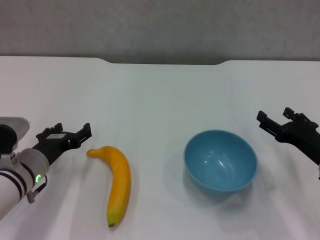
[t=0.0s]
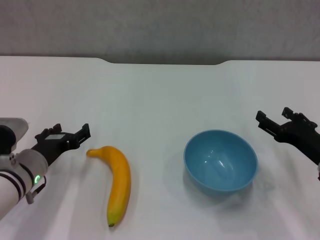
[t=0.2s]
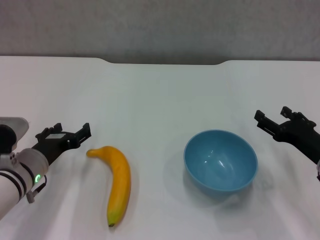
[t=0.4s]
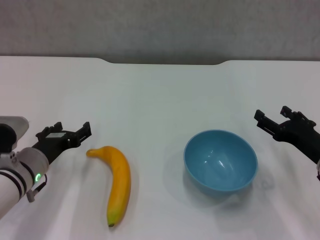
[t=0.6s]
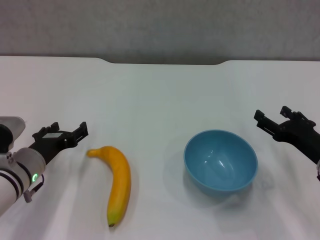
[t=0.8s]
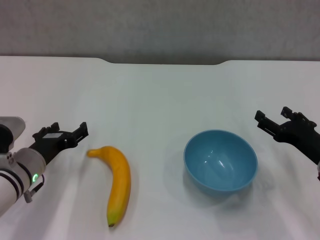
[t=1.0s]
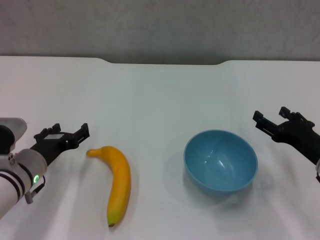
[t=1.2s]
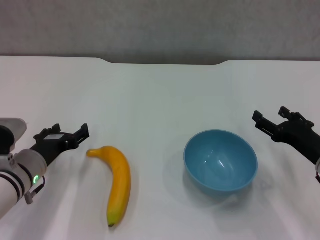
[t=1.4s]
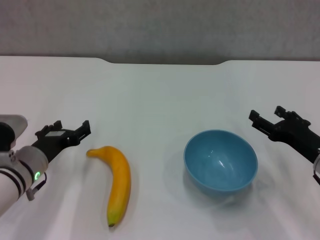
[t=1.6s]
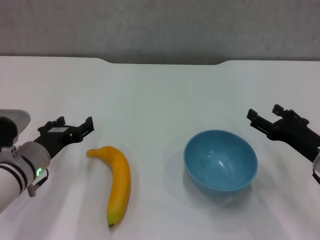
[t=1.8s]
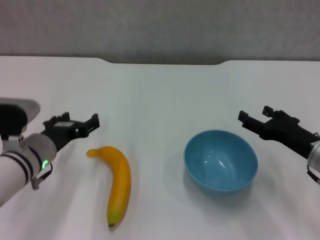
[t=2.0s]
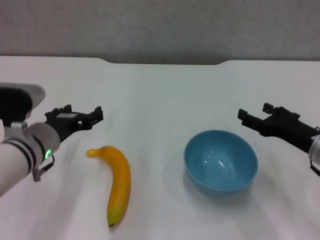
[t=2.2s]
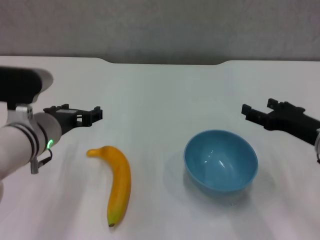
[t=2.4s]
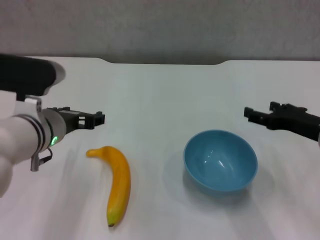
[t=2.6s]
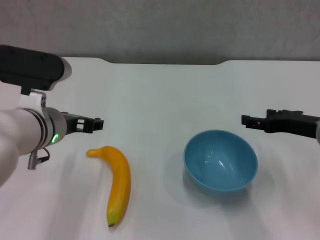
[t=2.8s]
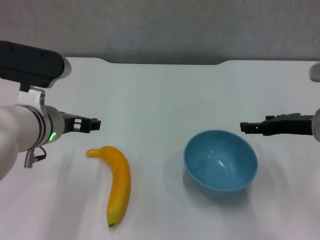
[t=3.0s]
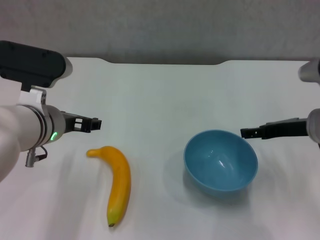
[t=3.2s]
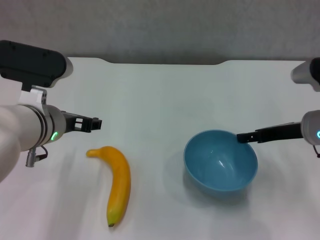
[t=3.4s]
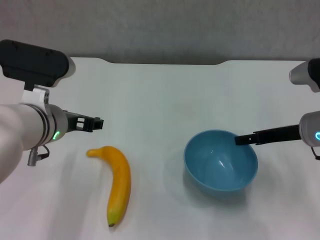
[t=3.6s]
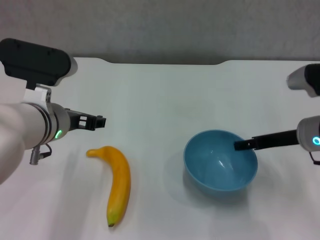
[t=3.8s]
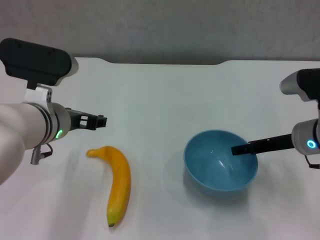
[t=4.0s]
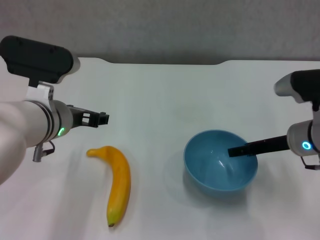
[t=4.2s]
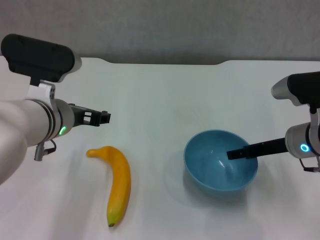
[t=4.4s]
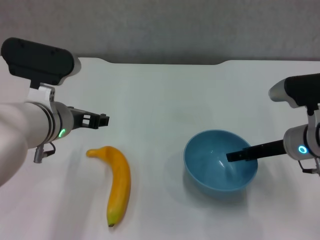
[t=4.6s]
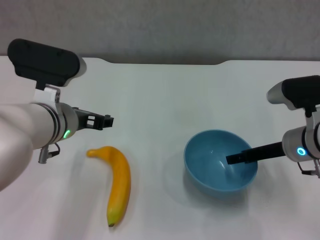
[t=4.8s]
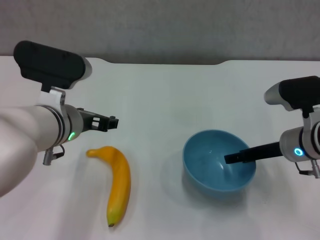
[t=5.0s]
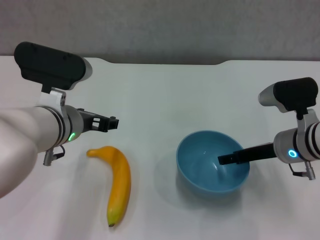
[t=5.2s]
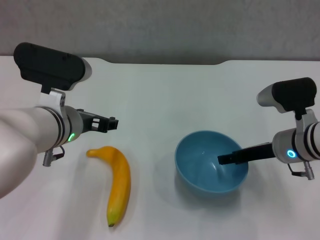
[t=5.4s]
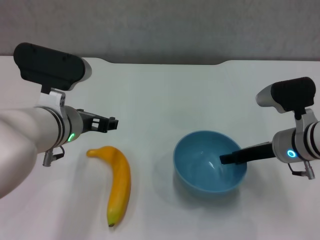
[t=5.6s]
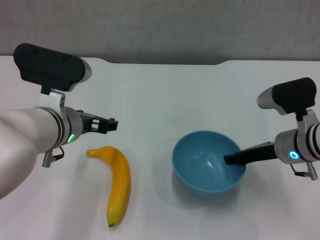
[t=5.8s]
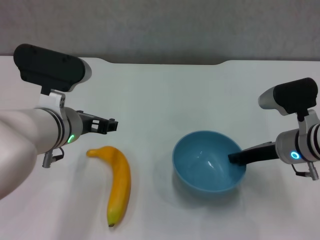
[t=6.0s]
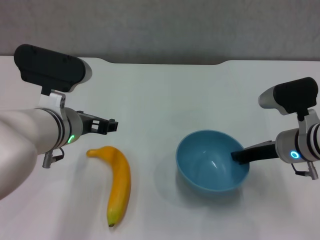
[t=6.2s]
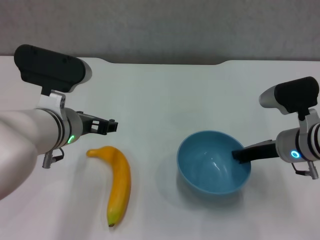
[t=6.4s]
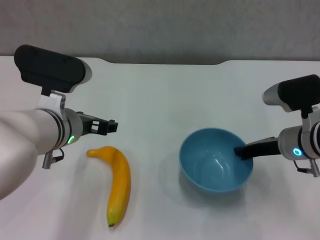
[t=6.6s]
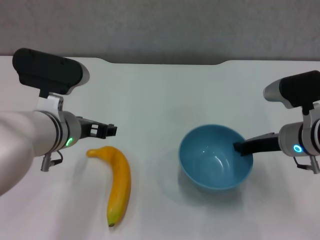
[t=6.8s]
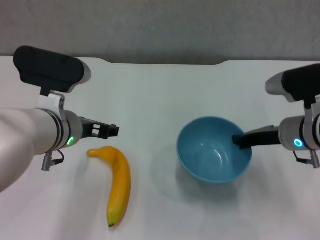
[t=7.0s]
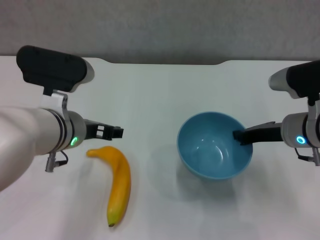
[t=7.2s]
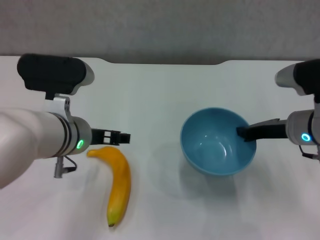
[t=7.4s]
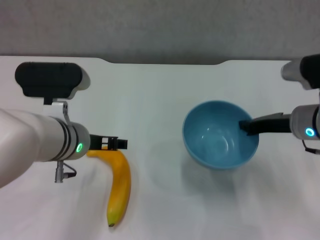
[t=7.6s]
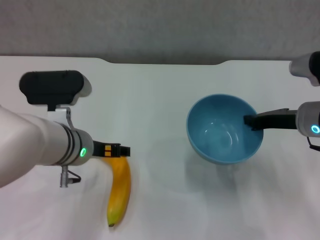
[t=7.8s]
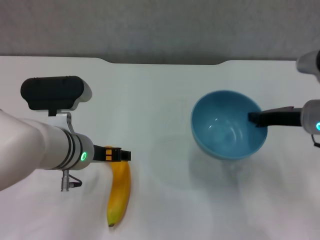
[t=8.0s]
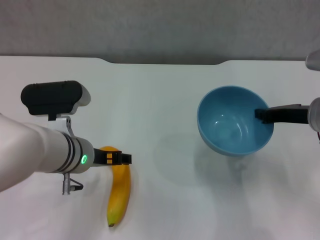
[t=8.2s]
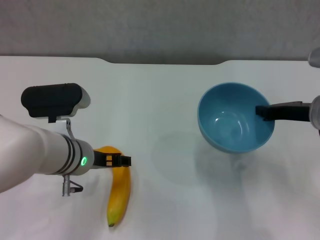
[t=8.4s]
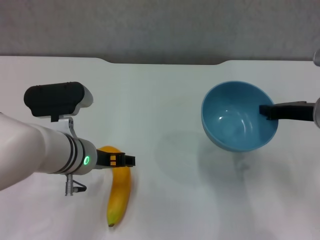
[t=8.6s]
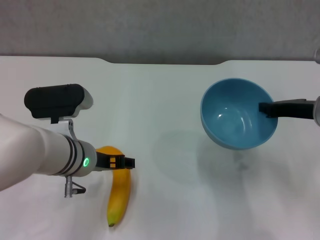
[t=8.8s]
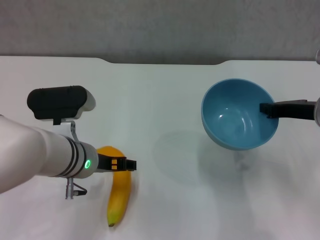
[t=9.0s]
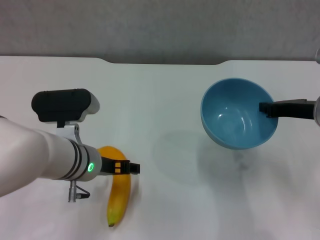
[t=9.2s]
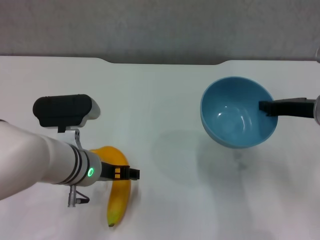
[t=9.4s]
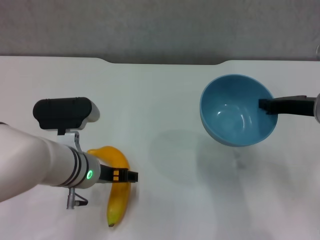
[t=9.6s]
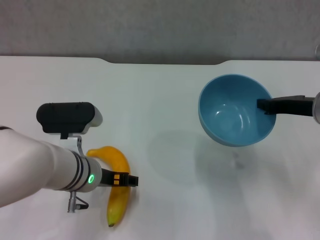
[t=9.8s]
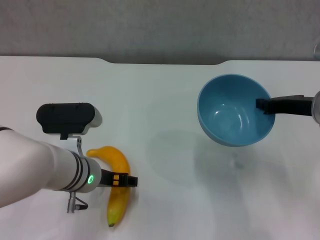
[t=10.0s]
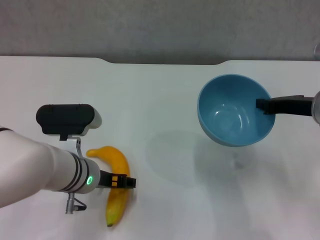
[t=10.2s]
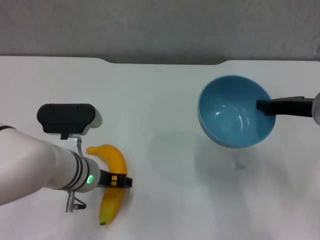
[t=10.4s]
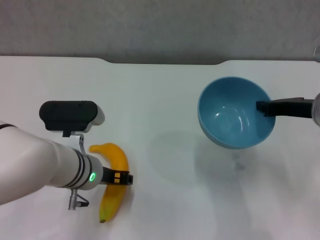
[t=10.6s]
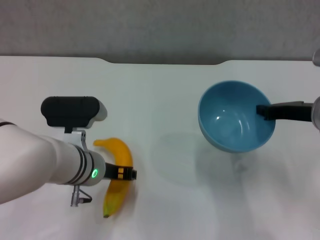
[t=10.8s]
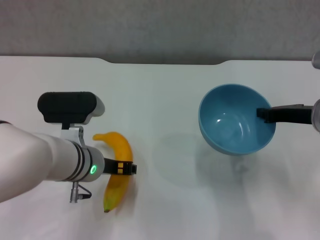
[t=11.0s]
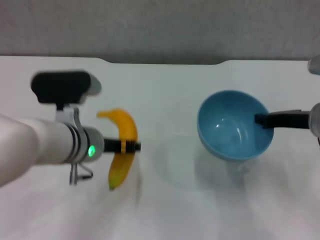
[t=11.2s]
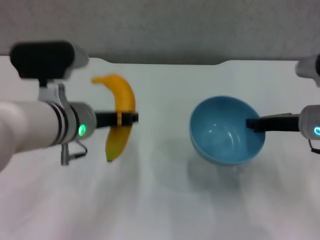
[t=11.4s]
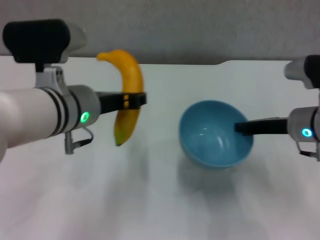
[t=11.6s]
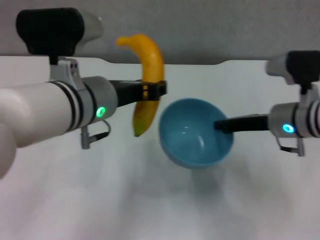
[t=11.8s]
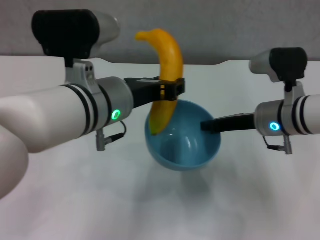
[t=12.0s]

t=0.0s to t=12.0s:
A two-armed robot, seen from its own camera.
Step, t=0.0s to t=6.2s: Grasp the blue bowl with right gripper.
Step, t=6.4s to t=8.2s: Lift the blue bowl with right gripper.
Step, t=8.4s to t=10.4s: Grasp the banana with left gripper.
t=0.0s to t=1.6s: The two grippers keep their place.
t=1.6s to t=3.0s: The left gripper moves upward and to the right, roughly 15 cm, while the right gripper is displaced upward and forward by some 10 cm.
t=3.0s to t=4.4s: The grippers move only a little.
t=4.4s to t=6.0s: The right gripper closes up.
t=6.0s to t=7.6s: The right gripper closes its fingers.
t=9.0s to t=10.4s: The grippers move only a little.
t=10.4s to t=12.0s: The right gripper is displaced to the left by some 5 cm, while the left gripper is displaced upward by about 15 cm, and closes.

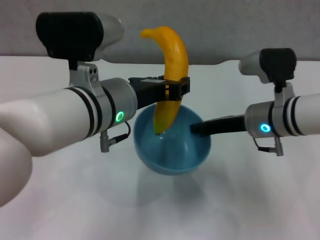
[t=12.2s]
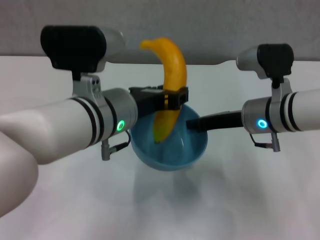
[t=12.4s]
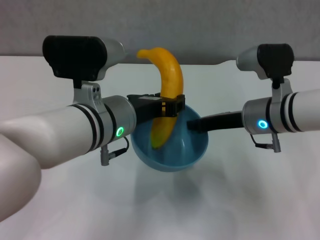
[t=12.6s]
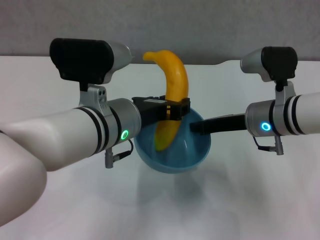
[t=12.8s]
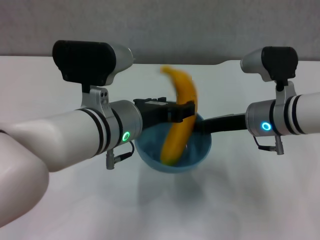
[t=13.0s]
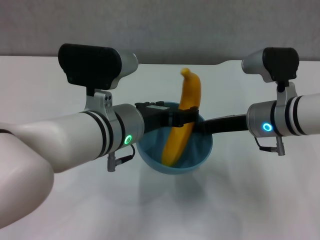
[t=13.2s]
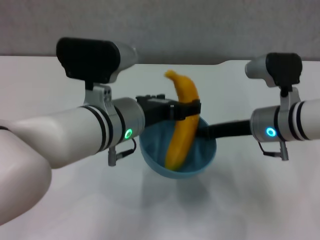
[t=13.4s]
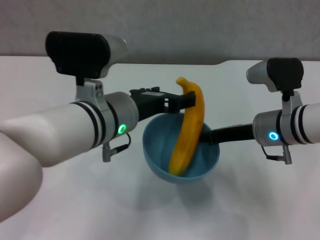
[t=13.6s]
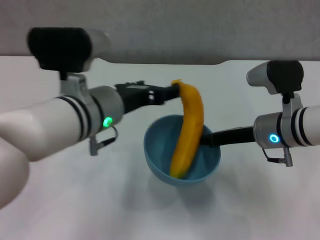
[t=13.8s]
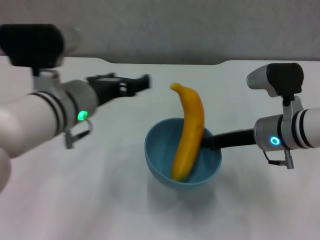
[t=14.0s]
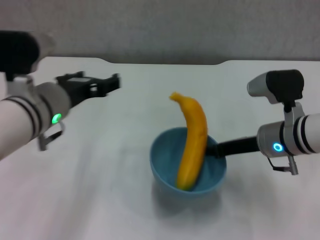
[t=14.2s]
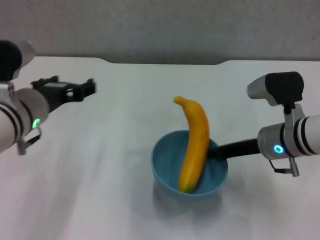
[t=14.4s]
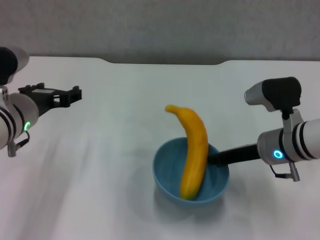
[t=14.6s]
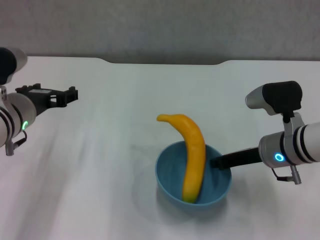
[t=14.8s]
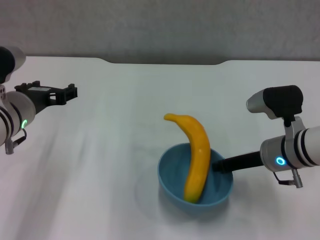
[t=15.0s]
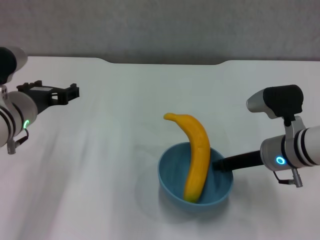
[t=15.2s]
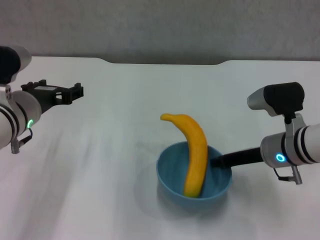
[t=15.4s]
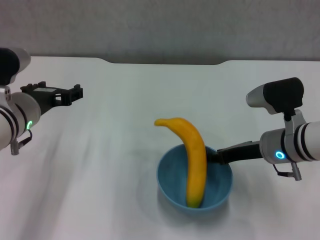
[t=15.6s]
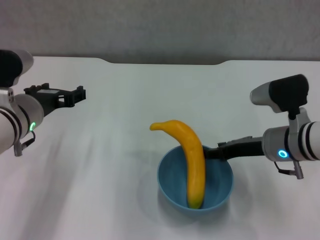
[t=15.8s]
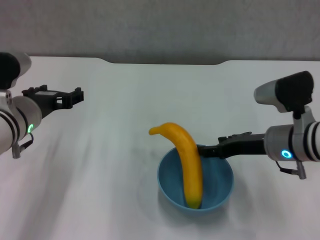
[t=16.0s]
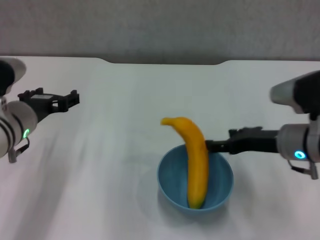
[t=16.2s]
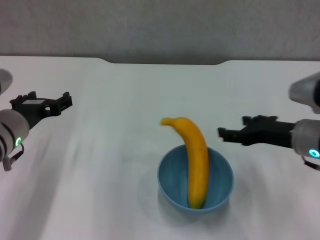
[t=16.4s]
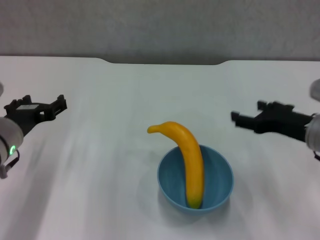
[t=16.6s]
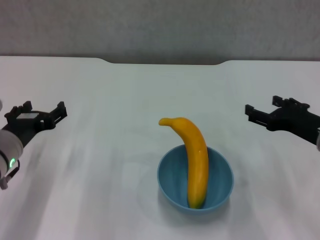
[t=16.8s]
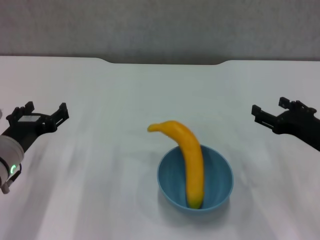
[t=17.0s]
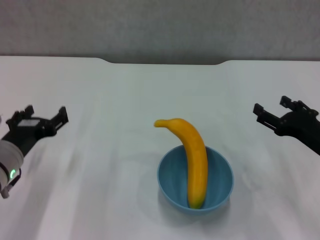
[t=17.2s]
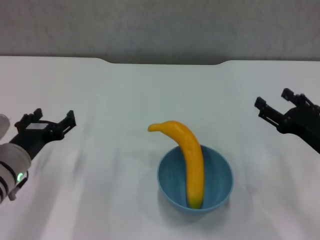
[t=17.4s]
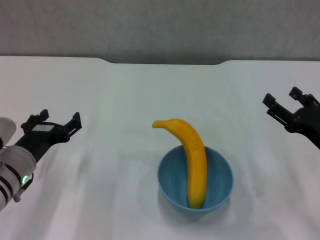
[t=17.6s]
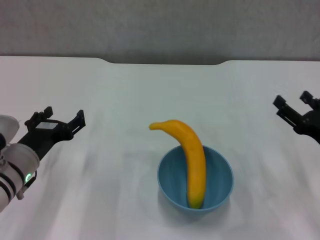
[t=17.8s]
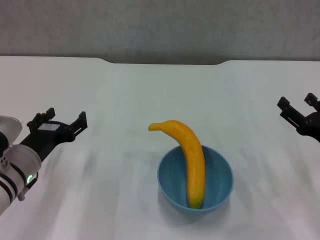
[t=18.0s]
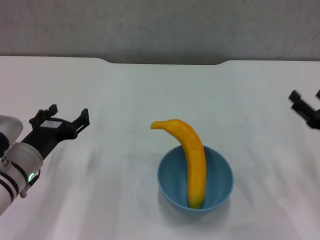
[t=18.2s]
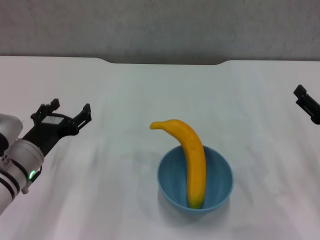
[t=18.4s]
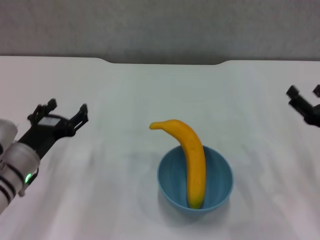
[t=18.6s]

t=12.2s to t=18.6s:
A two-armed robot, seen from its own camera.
Step, t=13.6s to t=15.6s: Place the bowl on the table with right gripper.
t=12.2s to t=13.8s: The left gripper opens up.
t=13.8s to t=15.4s: The left gripper moves to the left, approximately 10 cm.
t=15.4s to t=17.0s: The left gripper moves downward, about 5 cm, while the right gripper shifts some 10 cm to the right and backward, and opens its fingers.
